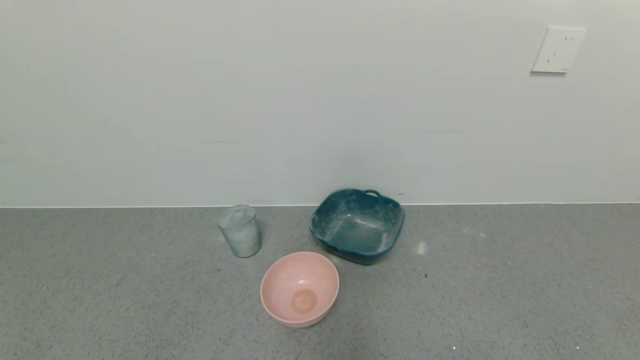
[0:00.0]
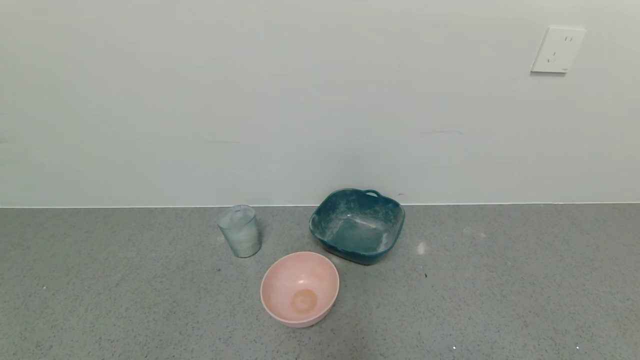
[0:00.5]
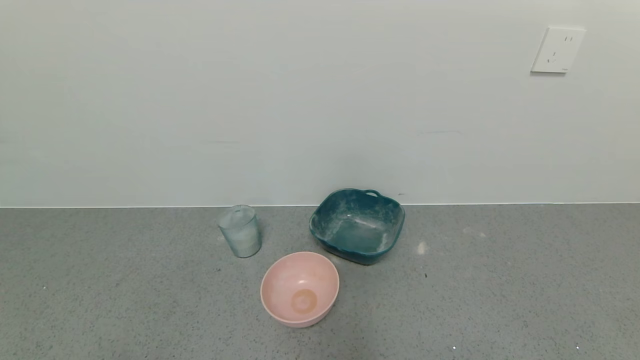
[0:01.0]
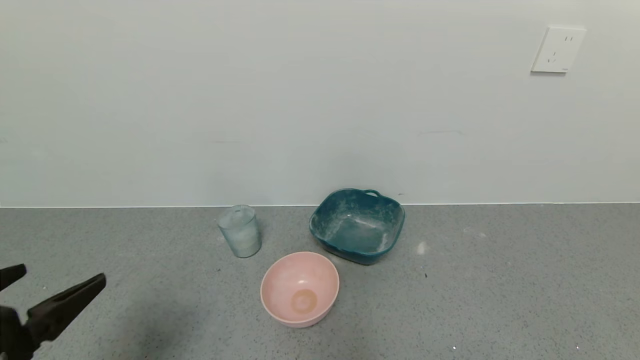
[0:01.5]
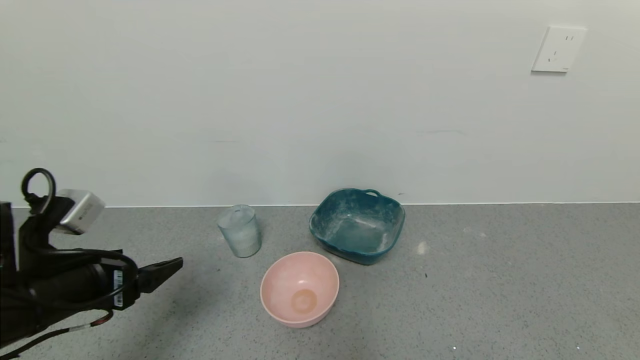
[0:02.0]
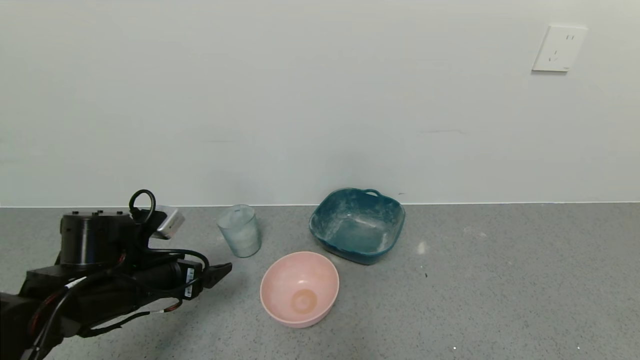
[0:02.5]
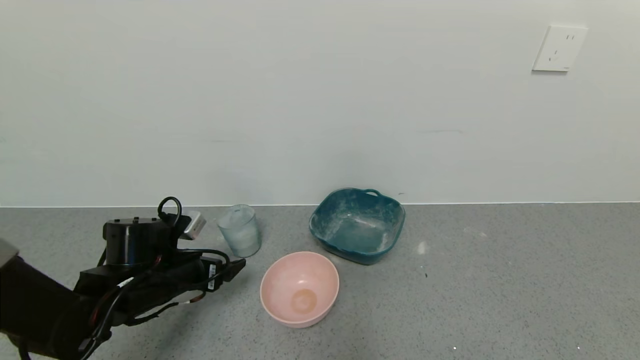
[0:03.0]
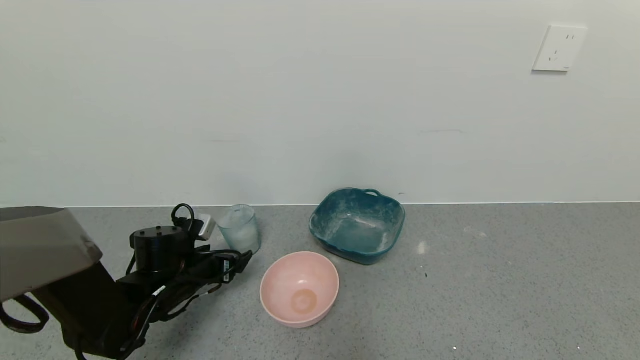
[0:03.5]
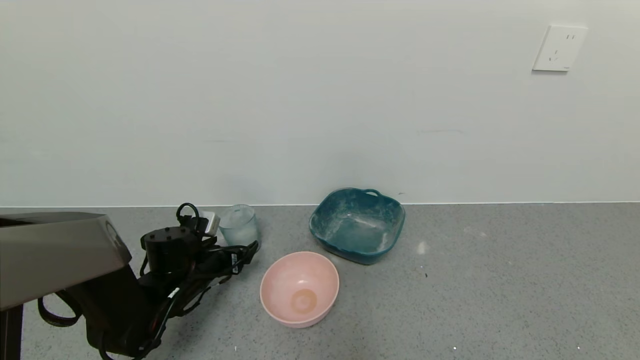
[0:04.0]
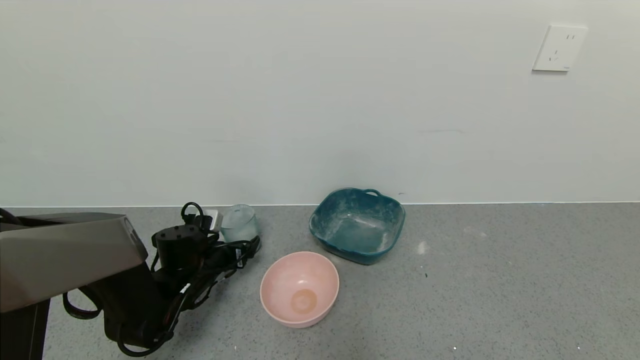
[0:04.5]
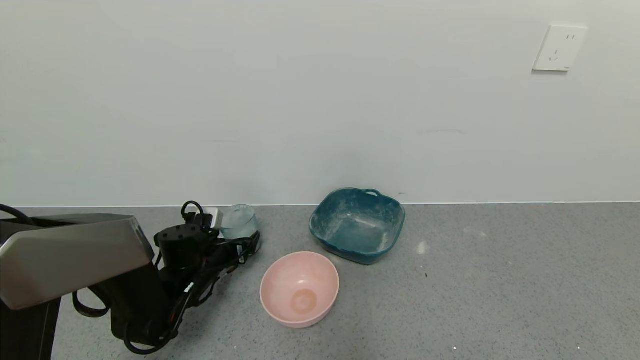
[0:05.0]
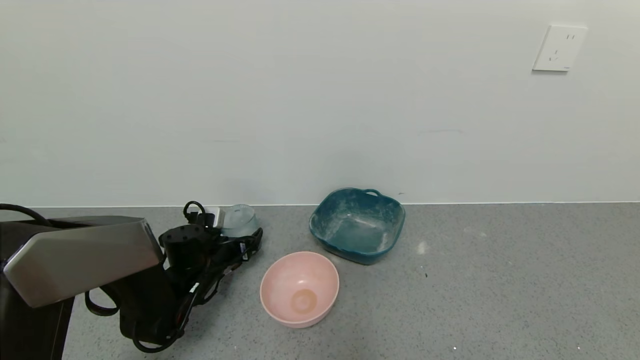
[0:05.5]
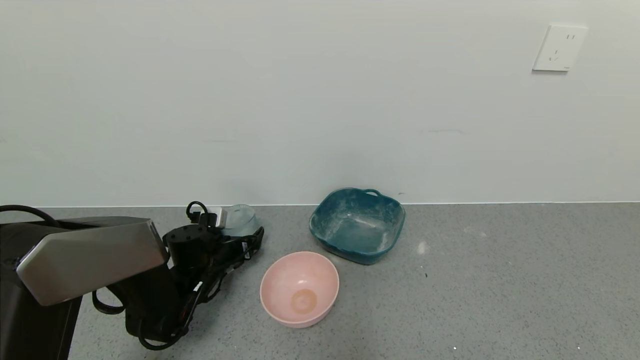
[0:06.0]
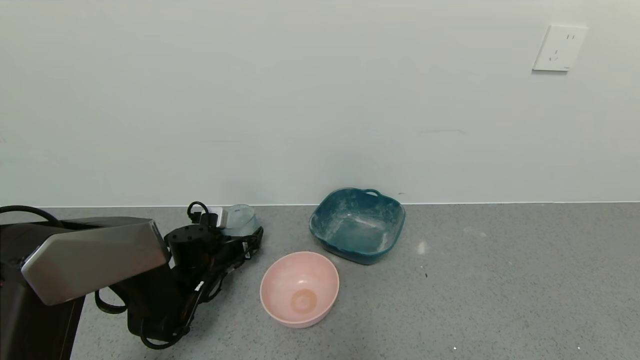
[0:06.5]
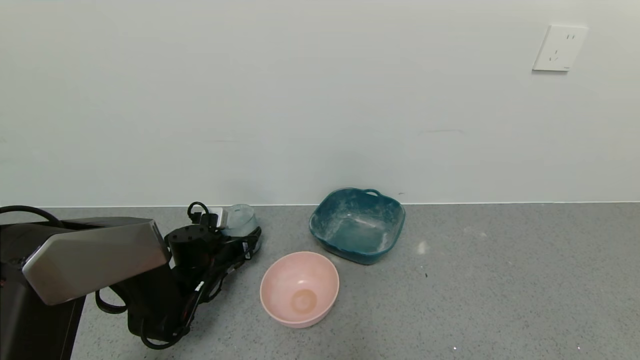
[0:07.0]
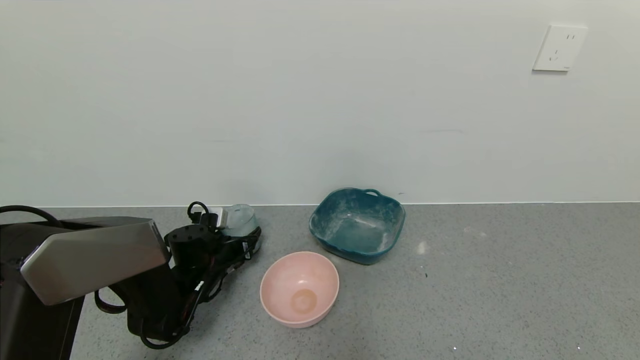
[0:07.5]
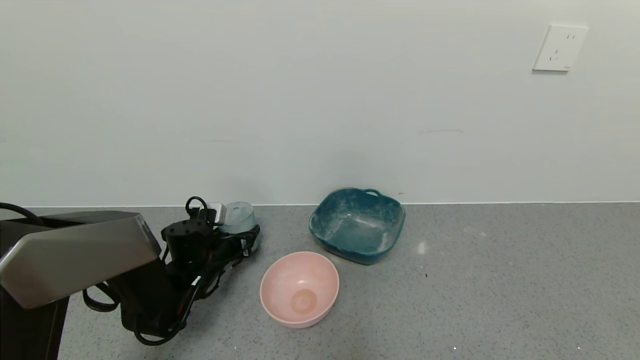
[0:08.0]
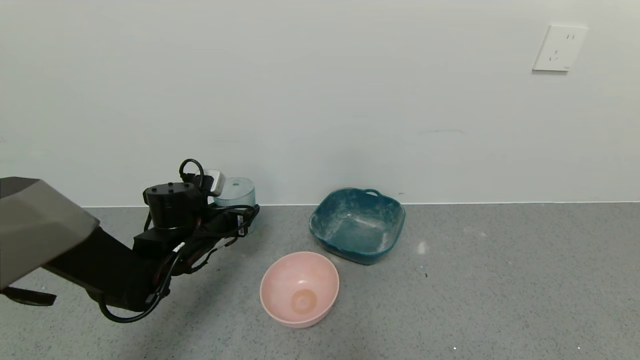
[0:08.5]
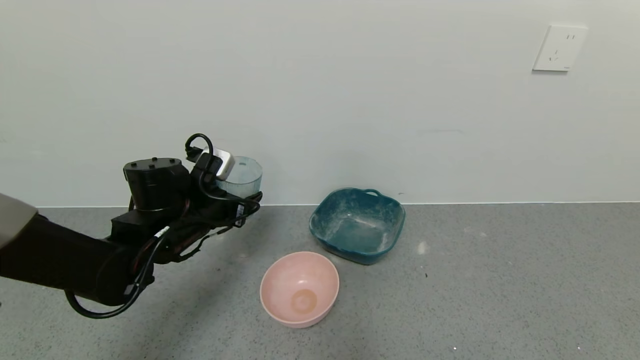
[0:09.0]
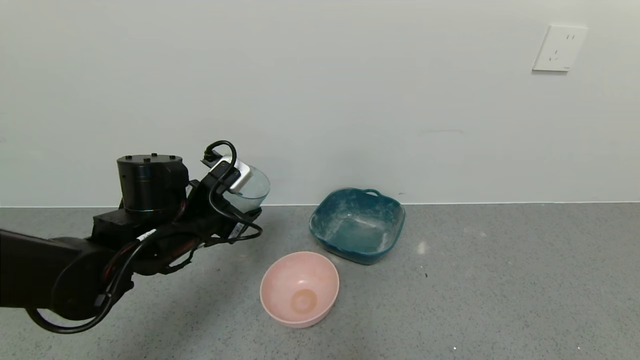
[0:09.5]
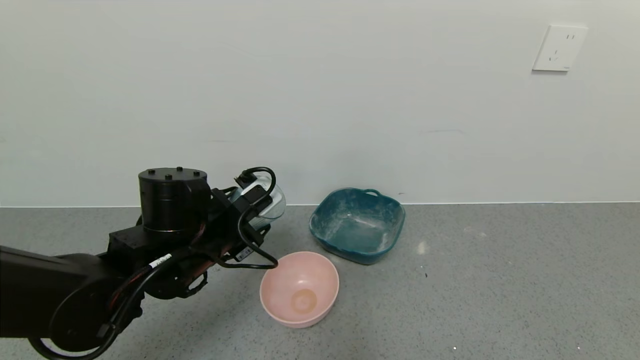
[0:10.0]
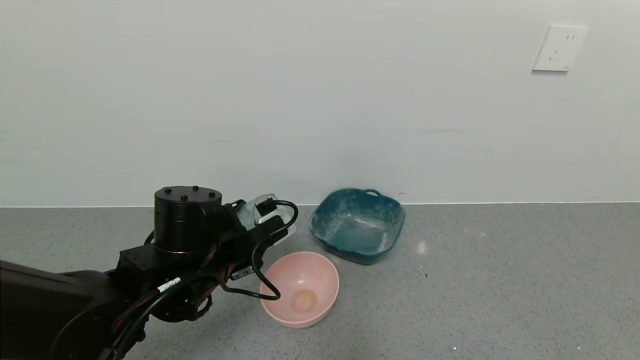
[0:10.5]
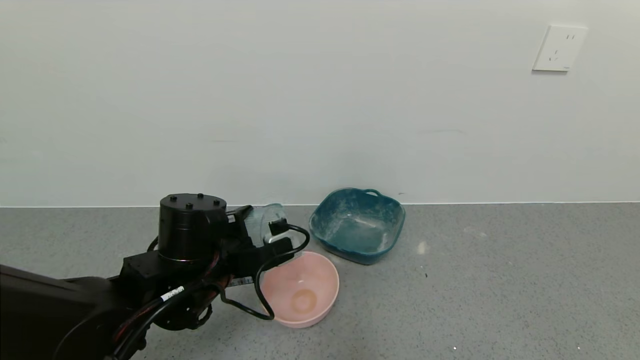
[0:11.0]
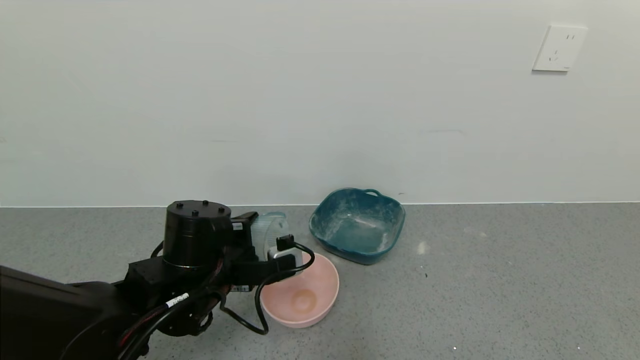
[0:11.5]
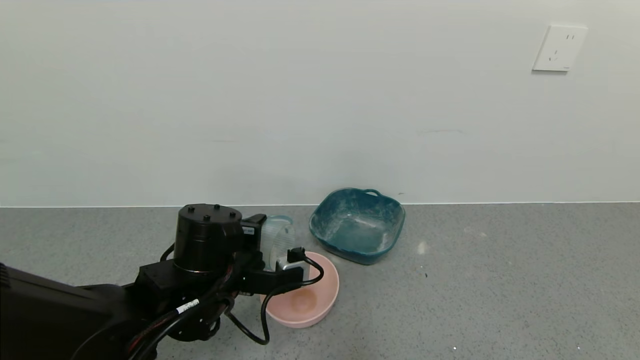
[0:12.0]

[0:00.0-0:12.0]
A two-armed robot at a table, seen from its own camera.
Task of the whole recording: use a gripper to pick up the cup and pour the powder into a bowl or tray.
Step, 0:00.0 to 0:07.0: Grasp the glass of powder with the left gripper.
0:00.0 to 0:02.0: The left gripper goes roughly 25 cm forward and upward.
0:02.0 to 0:04.0: The left gripper shifts some 20 cm forward and downward.
0:04.0 to 0:06.0: The grippers move only a little.
0:06.0 to 0:08.0: The left gripper closes its fingers.
0:08.0 to 0:10.0: The left gripper shifts roughly 20 cm upward, backward and to the right.

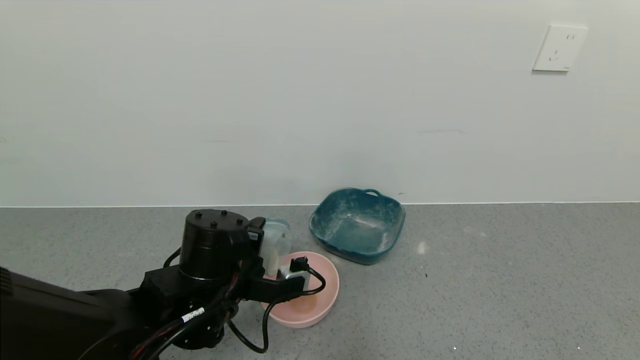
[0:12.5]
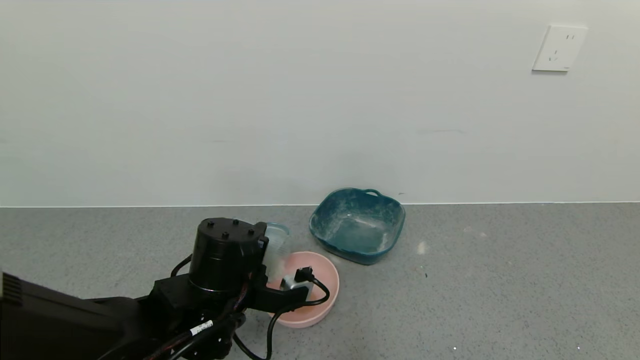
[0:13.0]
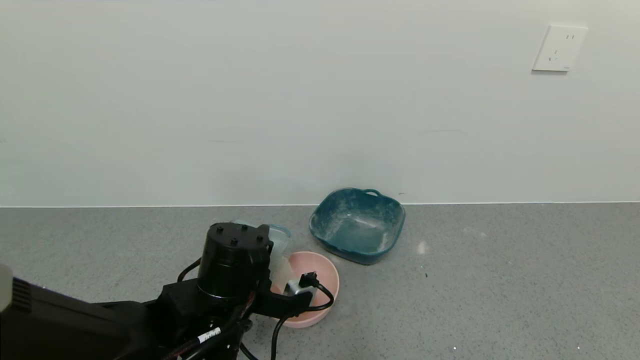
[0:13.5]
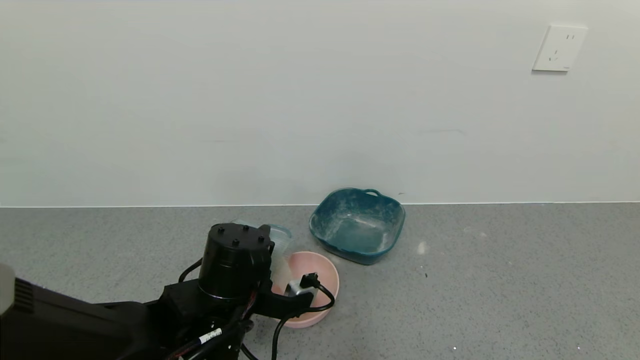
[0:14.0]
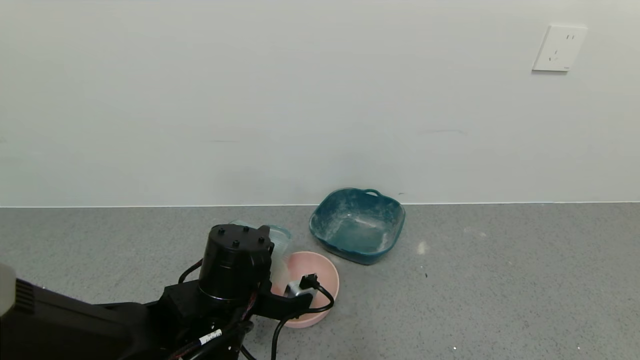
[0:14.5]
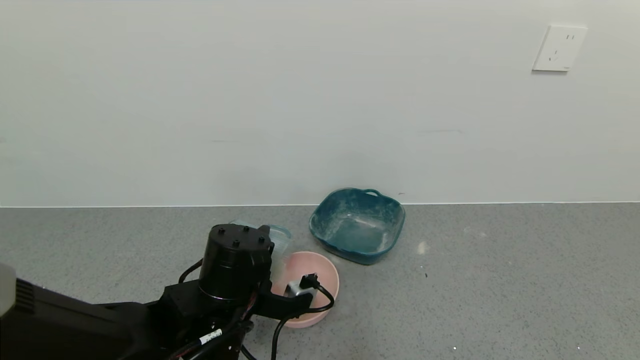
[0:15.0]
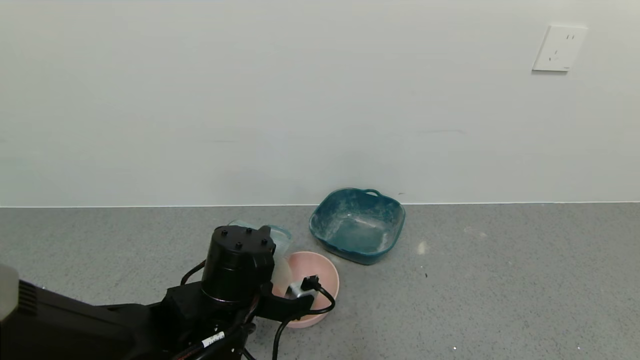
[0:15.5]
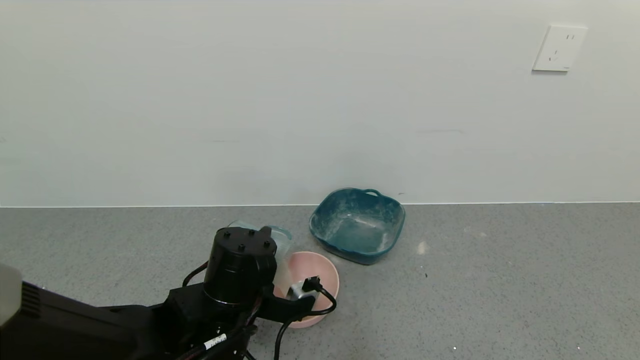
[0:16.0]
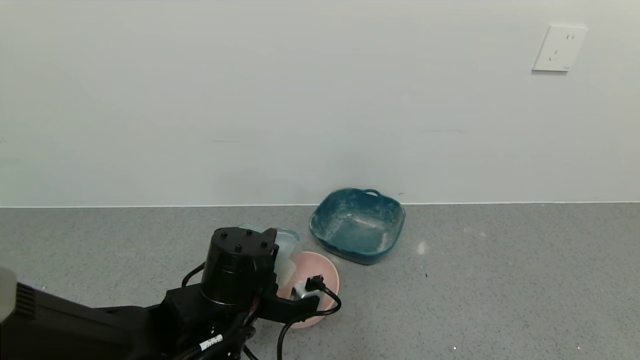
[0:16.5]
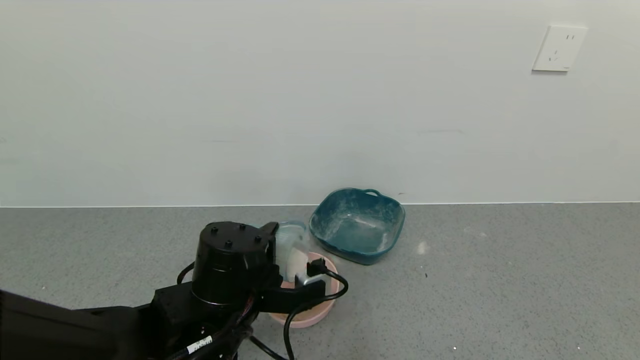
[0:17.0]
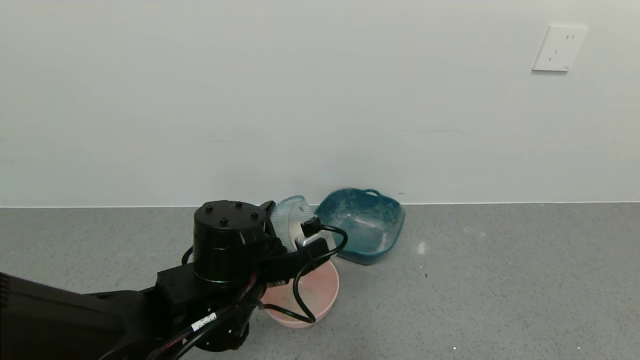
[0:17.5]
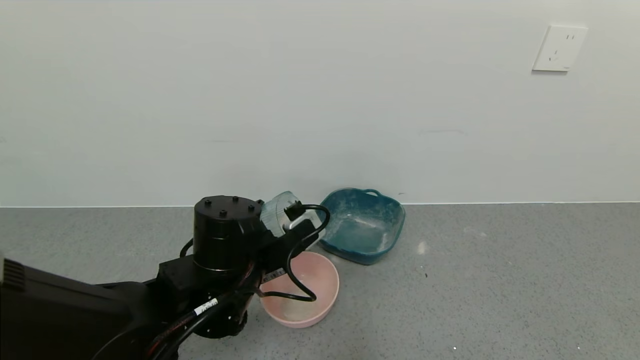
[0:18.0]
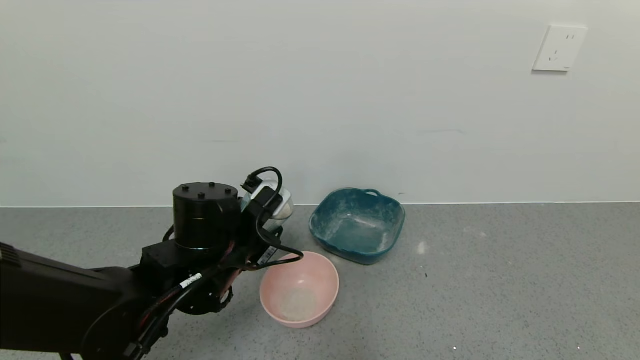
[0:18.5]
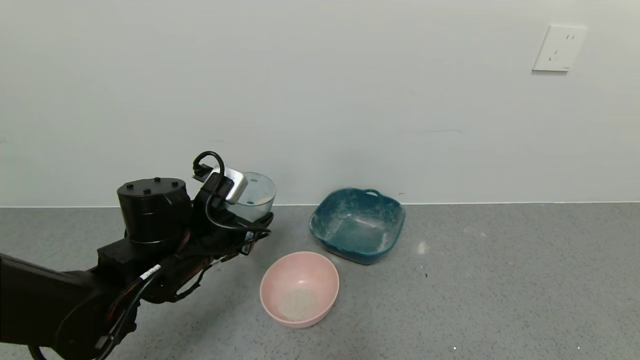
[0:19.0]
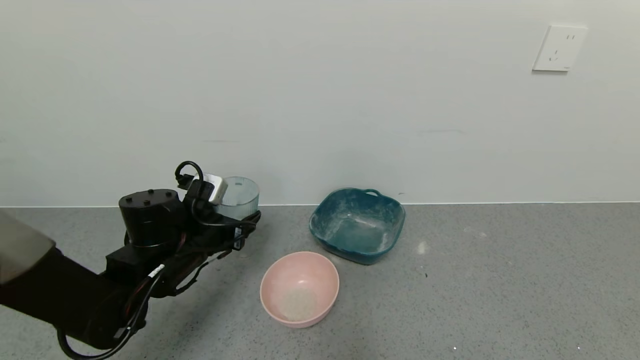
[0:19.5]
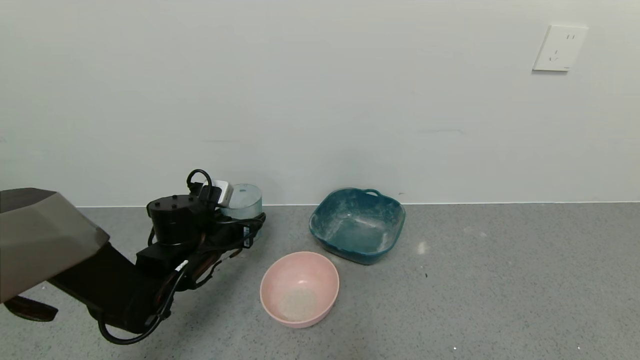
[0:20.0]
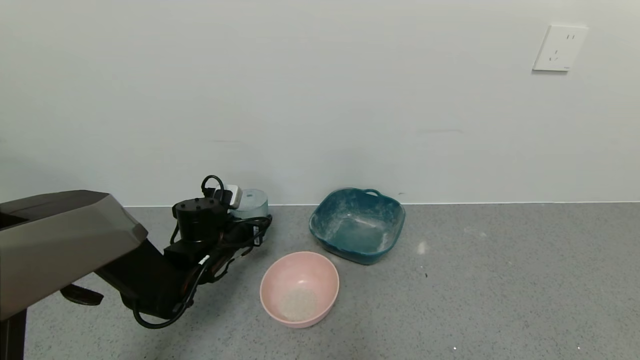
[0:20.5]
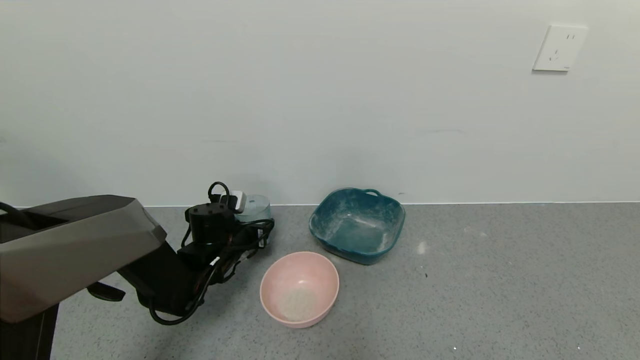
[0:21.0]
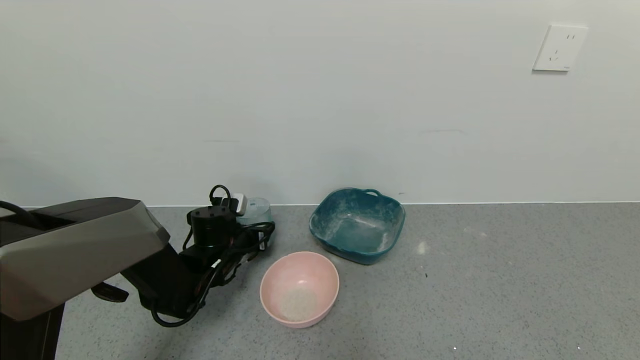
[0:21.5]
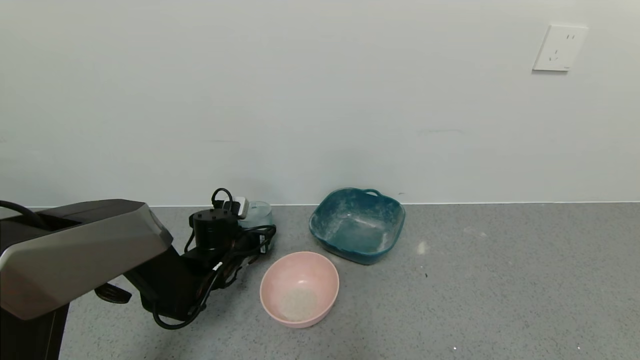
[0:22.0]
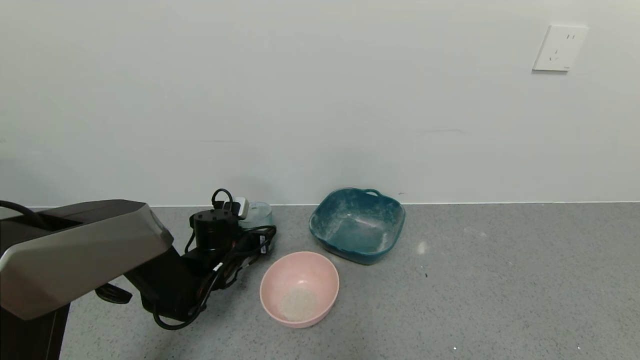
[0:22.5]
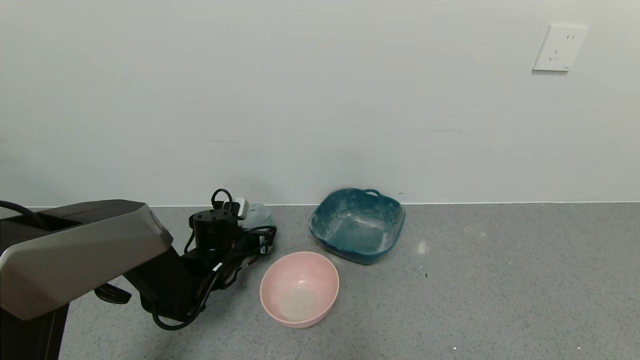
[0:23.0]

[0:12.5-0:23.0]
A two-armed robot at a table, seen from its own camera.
Task of the whole recording: use a gripper to pick up the cup and pour the powder into a bowl or tray.
Step, 0:12.5 to 0:17.0: Pour the powder into the pink bowl with the left gripper.
0:12.5 to 0:16.5: There are only small adjustments of the grippers.
0:16.5 to 0:19.0: The left gripper is displaced to the left and forward by roughly 10 cm.
0:19.0 to 0:21.0: The left gripper is displaced downward and forward by roughly 15 cm.
0:21.0 to 0:23.0: The left gripper opens.
